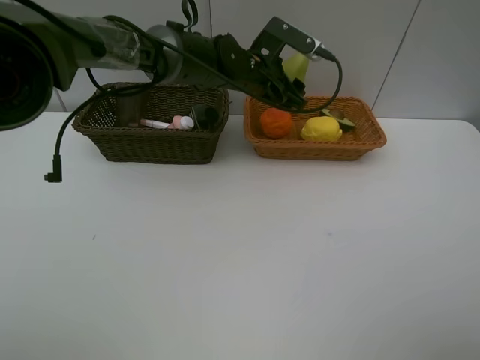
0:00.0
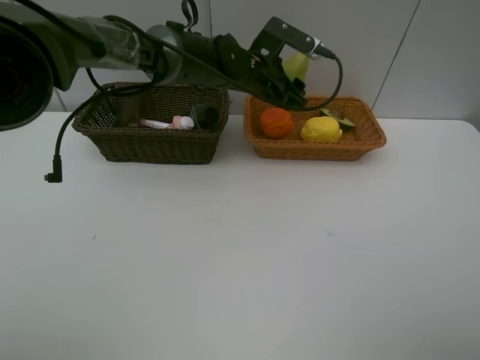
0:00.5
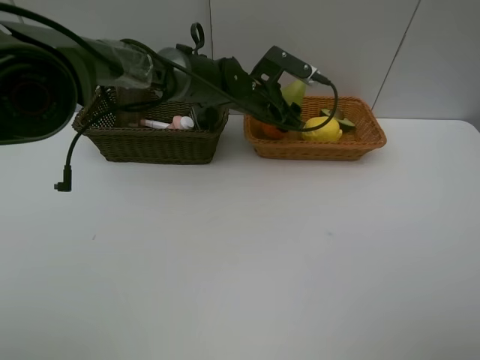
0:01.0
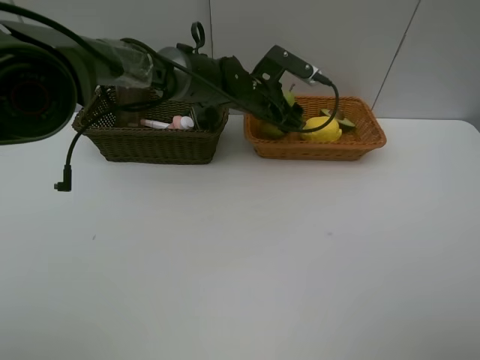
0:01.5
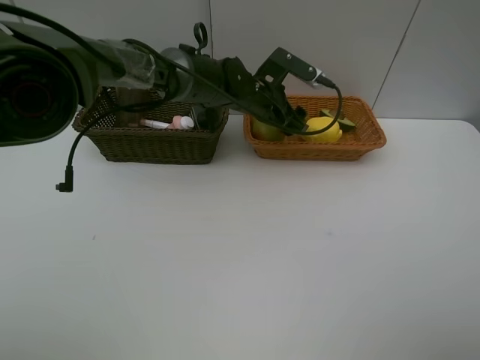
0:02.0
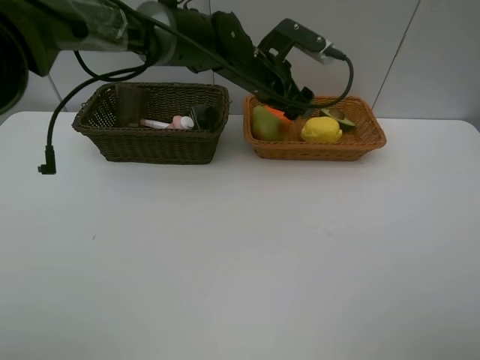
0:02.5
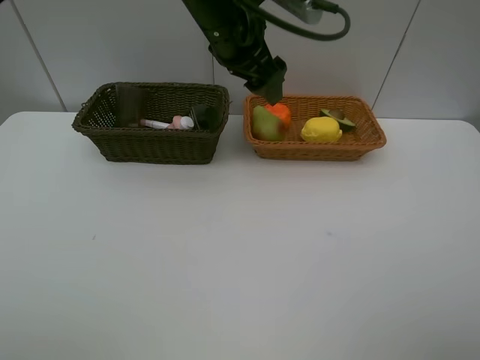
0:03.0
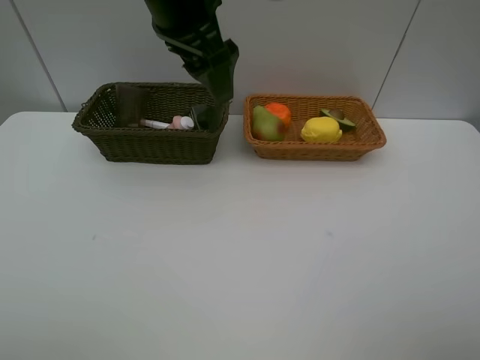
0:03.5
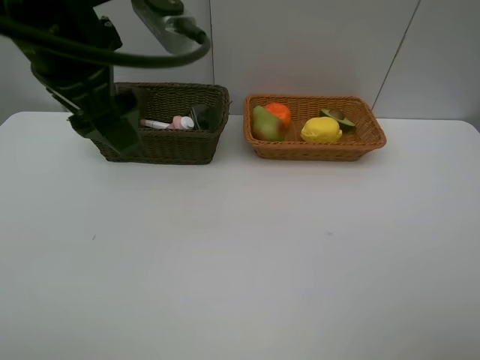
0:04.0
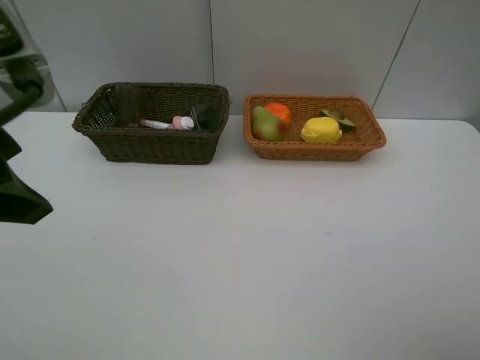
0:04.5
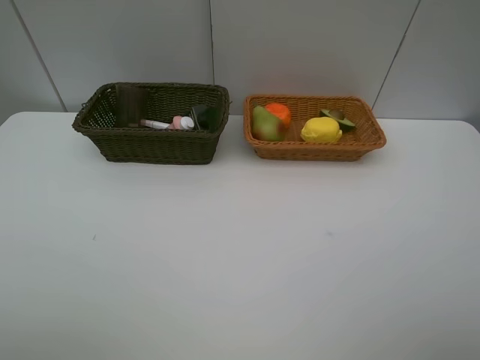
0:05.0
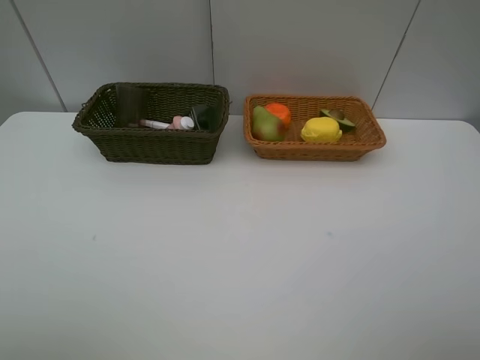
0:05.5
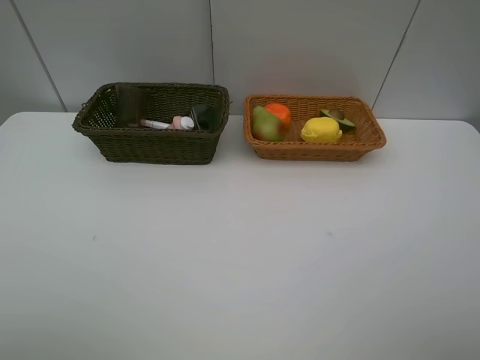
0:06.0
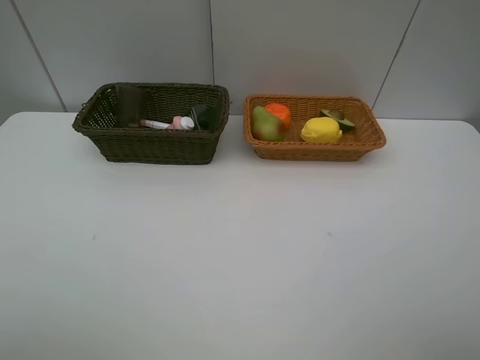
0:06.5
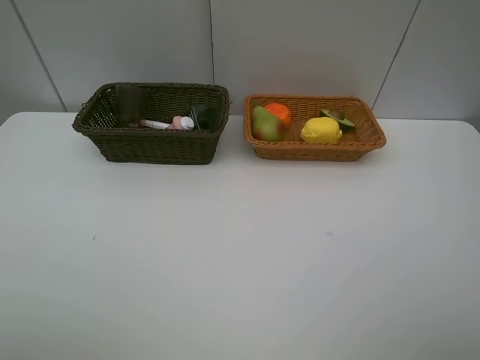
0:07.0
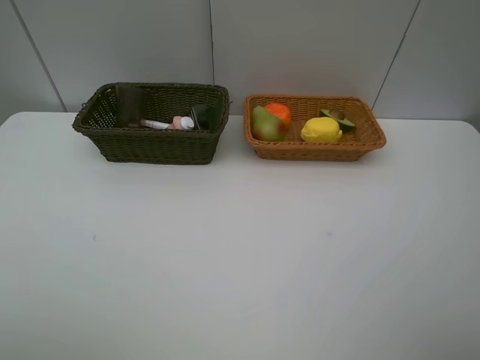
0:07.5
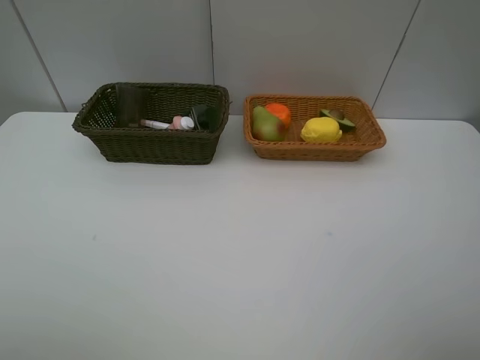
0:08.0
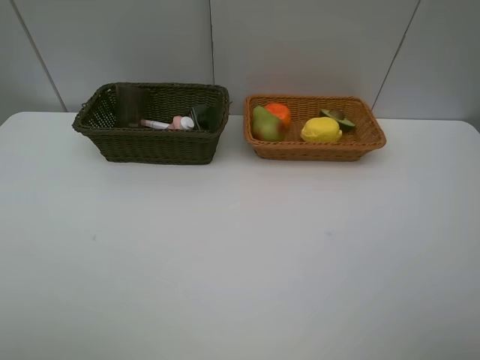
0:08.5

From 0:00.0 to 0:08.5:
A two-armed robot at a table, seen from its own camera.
Task of the whole recording: Place multiple objects separately in different baskets.
Step, from 0:00.0 to 0:02.5: Place the pear in the light basket with left gripper.
From 0:00.0 to 0:02.0: There are only small adjustments of the grippers.
From 0:02.0 to 0:04.0: The left gripper heads backward, upward and to the left, covering some 35 cm.
From 0:04.0 to 0:06.5: The left gripper heads backward and to the left, covering some 25 cm.
From 0:06.5 to 0:08.5: Both grippers stay put.

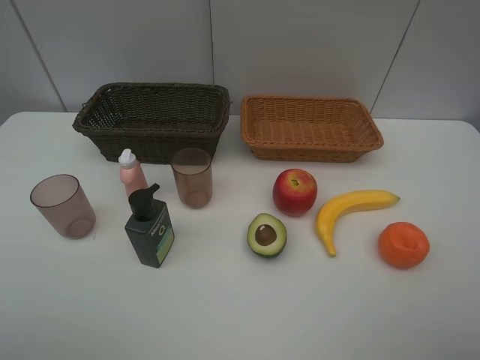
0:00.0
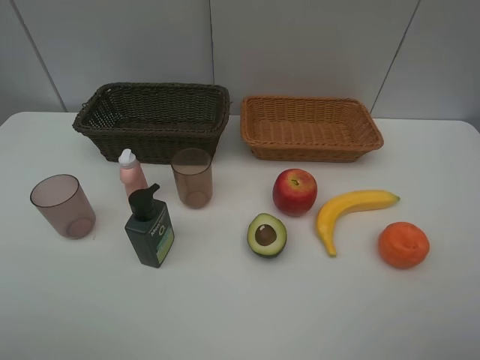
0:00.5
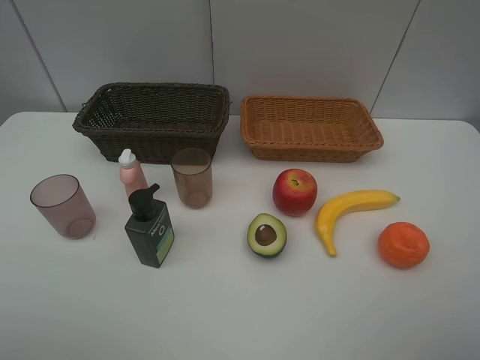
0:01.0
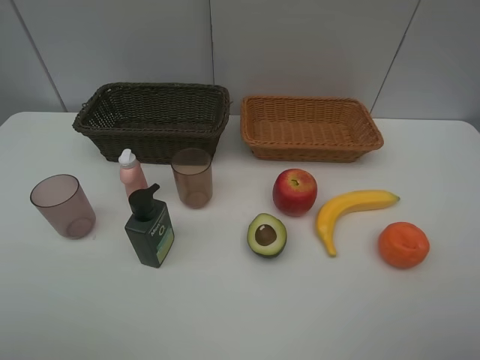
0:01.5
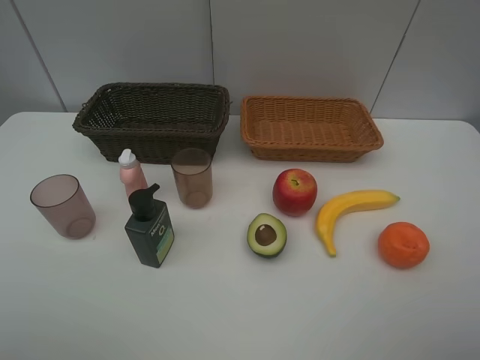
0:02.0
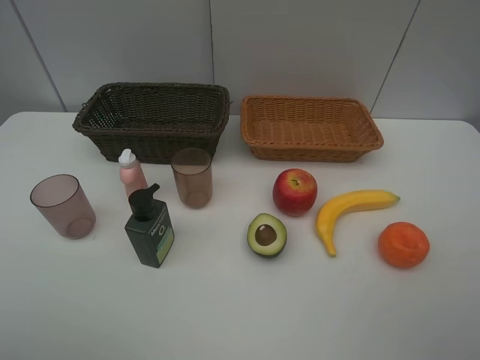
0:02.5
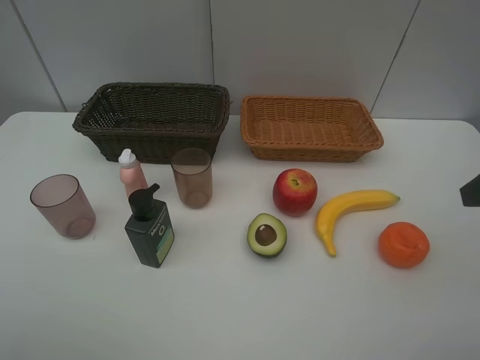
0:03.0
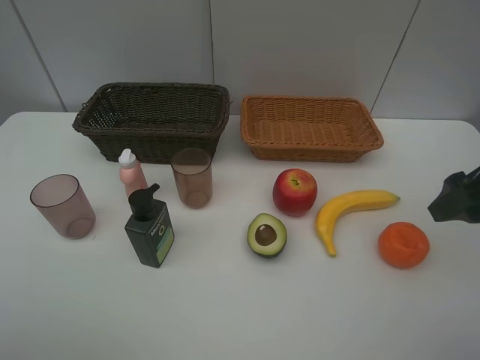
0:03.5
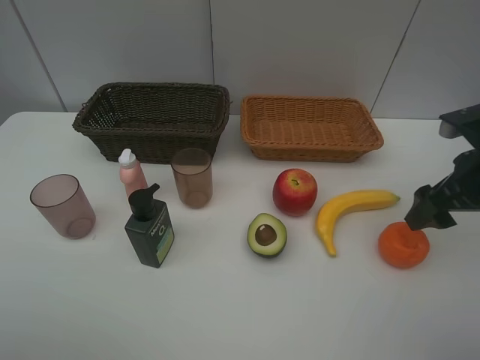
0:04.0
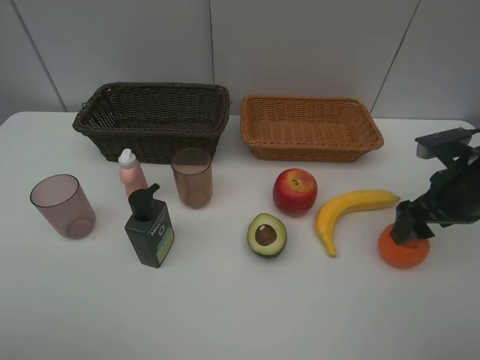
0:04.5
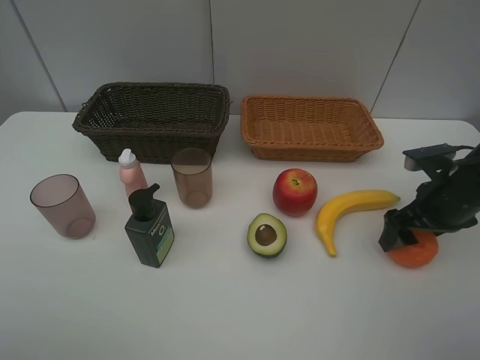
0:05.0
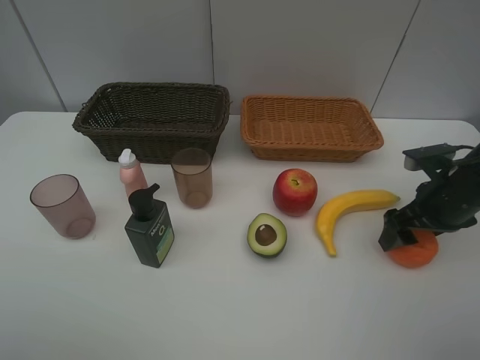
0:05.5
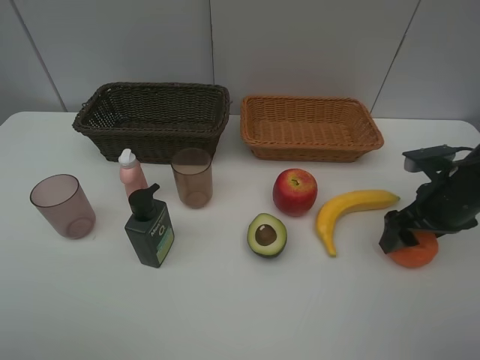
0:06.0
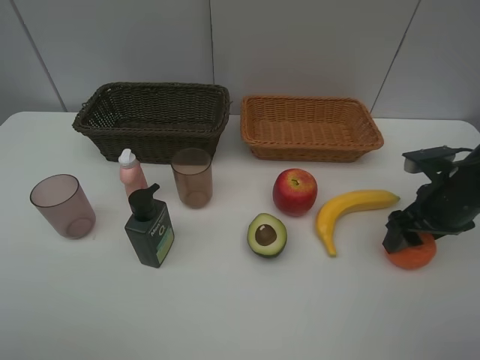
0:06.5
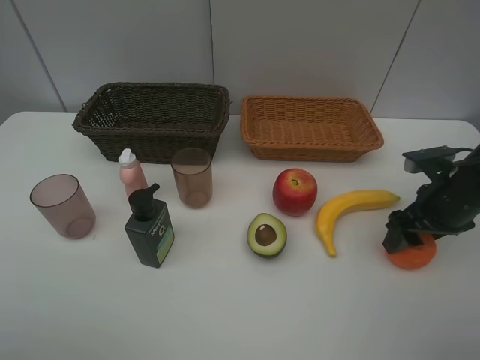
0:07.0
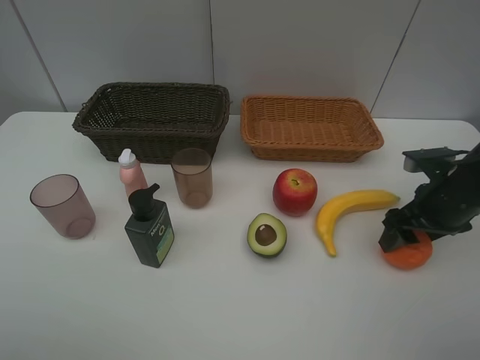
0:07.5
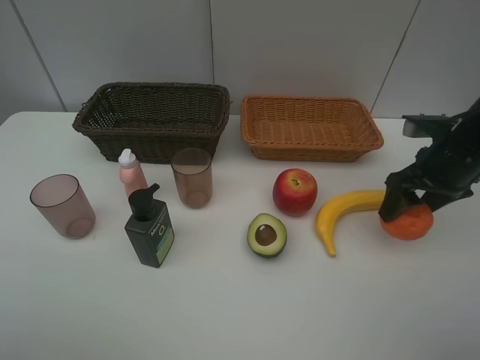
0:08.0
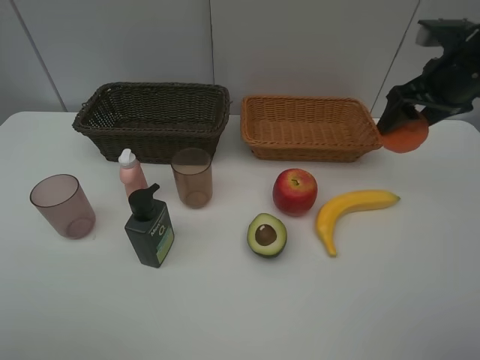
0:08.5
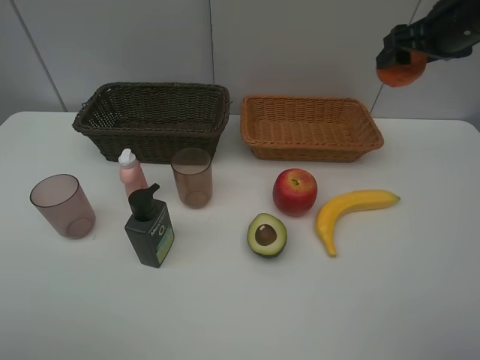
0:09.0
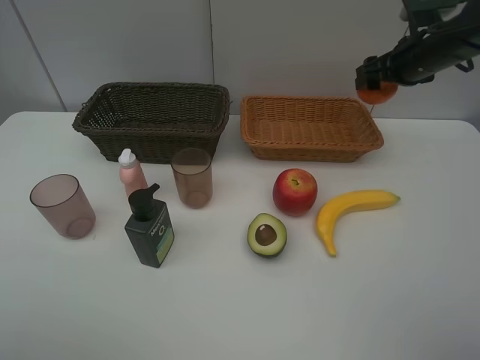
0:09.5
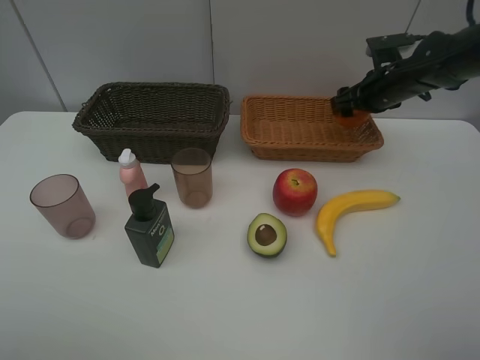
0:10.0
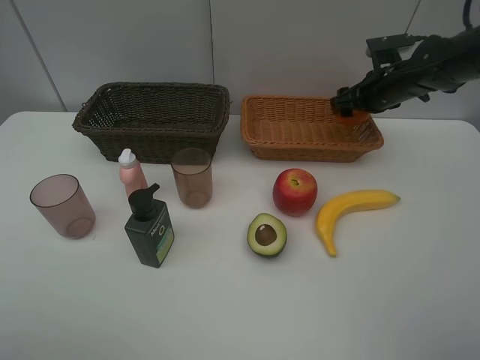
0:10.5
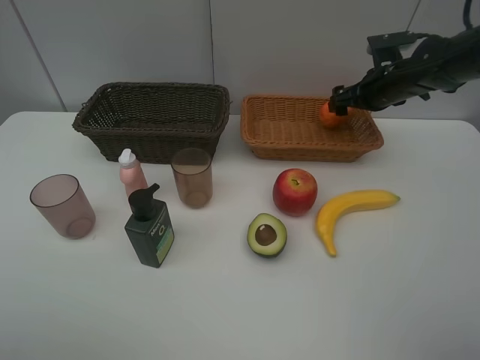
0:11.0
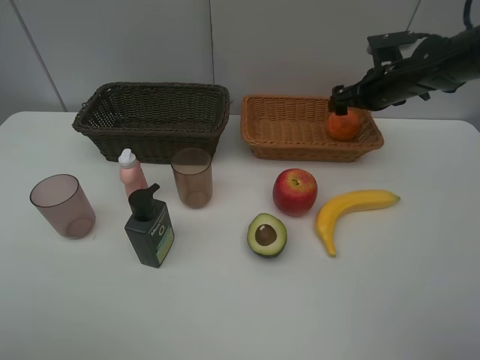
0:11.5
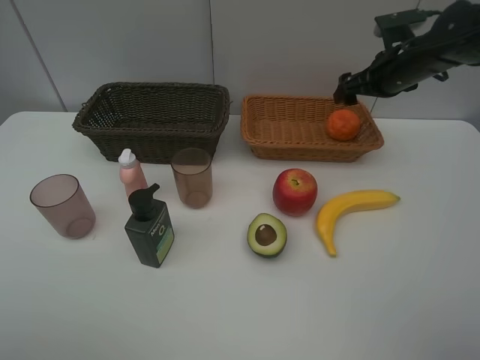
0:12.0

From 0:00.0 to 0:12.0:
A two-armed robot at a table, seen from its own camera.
Task of the whole recording: Place multiple objects separately in different baskets.
Step, from 0:00.0 to 0:07.5: Pick up the orange with right gripper.
Step, from 0:08.0 to 0:11.0: Place the orange in the light basket with right gripper.
From 0:00.0 to 0:02.0: Both grippers stay put.
From 0:02.0 to 0:04.0: The right gripper heads forward, covering some 20 cm.
From 0:04.0 to 0:06.0: The right gripper shifts roughly 5 cm downward.
From 0:06.0 to 0:08.0: The right gripper shifts by roughly 5 cm.
From 0:08.0 to 0:10.0: The right gripper heads forward, covering approximately 15 cm.
From 0:10.0 to 0:12.0: The right gripper opens its fingers.

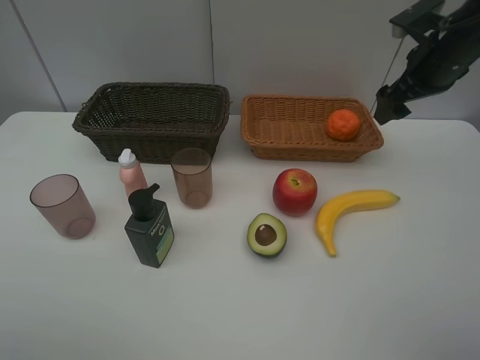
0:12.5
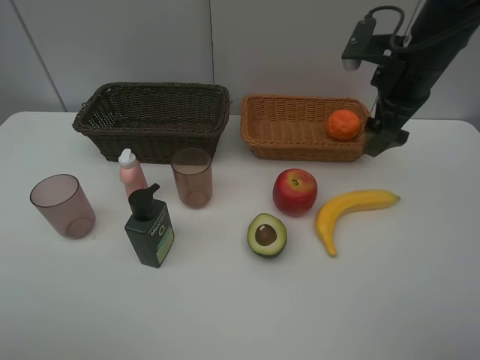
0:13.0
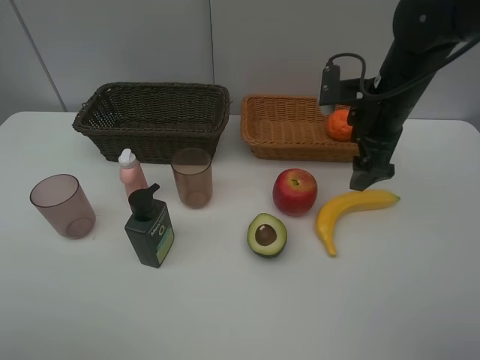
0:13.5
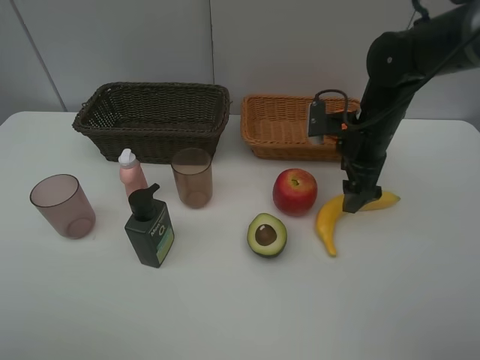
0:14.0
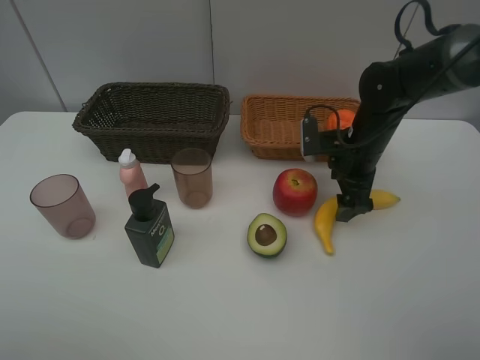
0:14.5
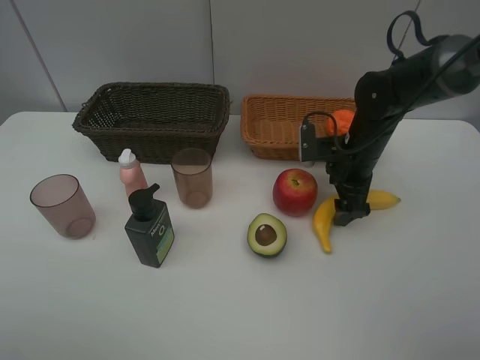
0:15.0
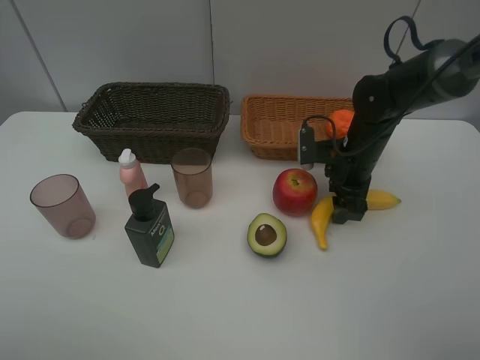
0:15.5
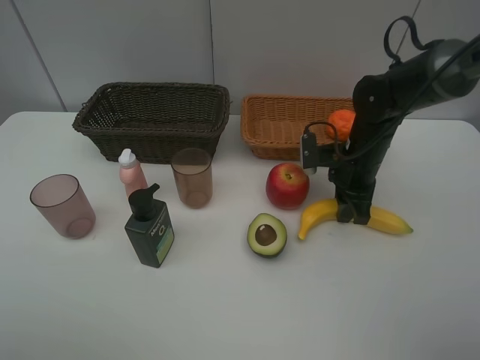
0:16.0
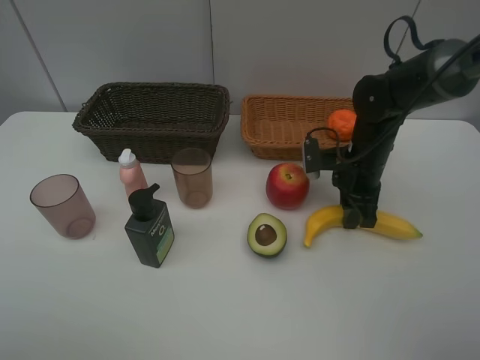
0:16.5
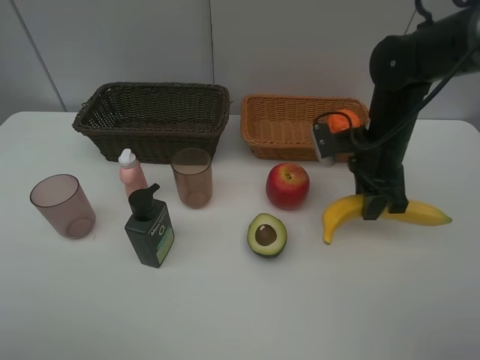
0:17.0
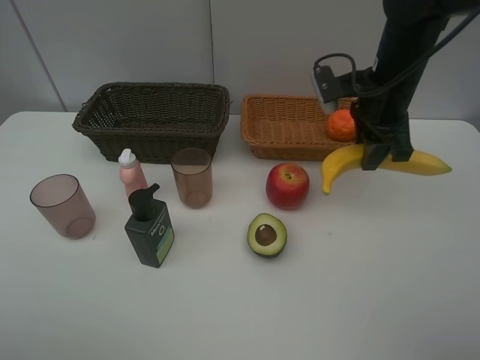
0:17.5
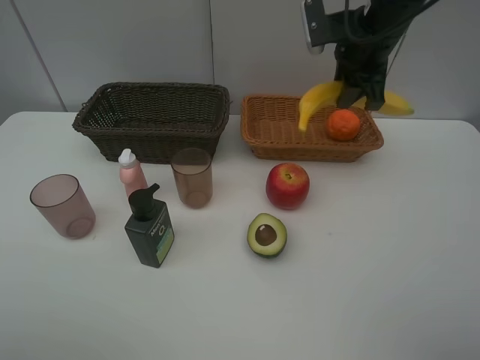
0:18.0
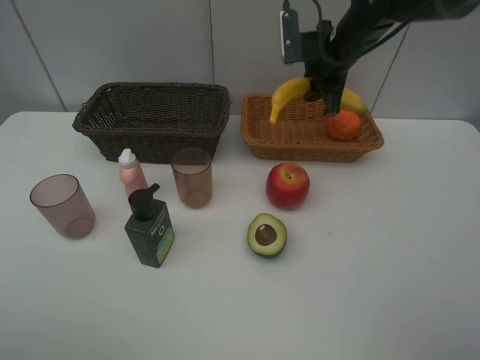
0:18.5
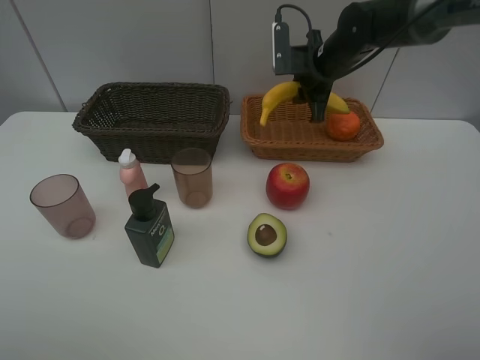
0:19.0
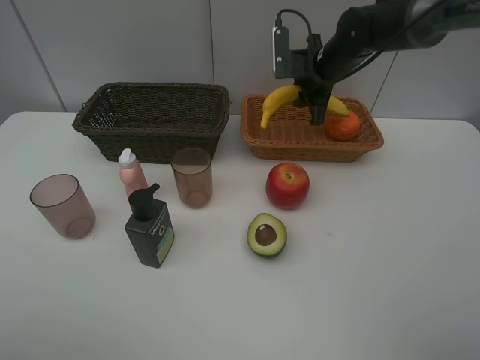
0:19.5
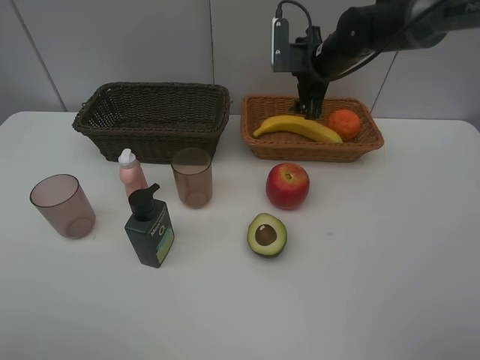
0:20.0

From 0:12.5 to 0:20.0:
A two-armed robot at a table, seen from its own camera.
Task of the whole recording: Place multiple objects separately in different baskets.
Step, from 0:12.5 to 0:16.5: Pick up banana with right gripper.
Step, from 0:17.0 to 0:20.0: Place the banana in the light basket with right gripper.
From 0:12.5 to 0:14.5: The right gripper moves downward and to the left, roughly 15 cm.
From 0:14.5 to 0:16.5: The right gripper closes up.
From 0:16.5 to 0:18.0: The right gripper is displaced upward and forward by some 20 cm.
From 0:18.0 to 0:20.0: The right gripper is displaced downward and forward by about 10 cm, and opens.
